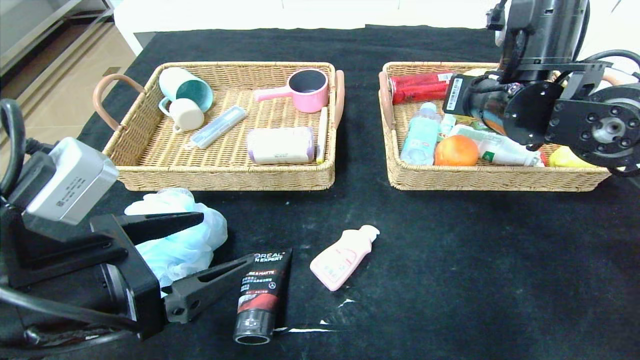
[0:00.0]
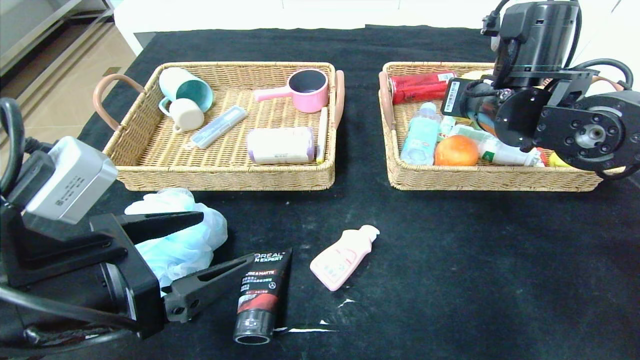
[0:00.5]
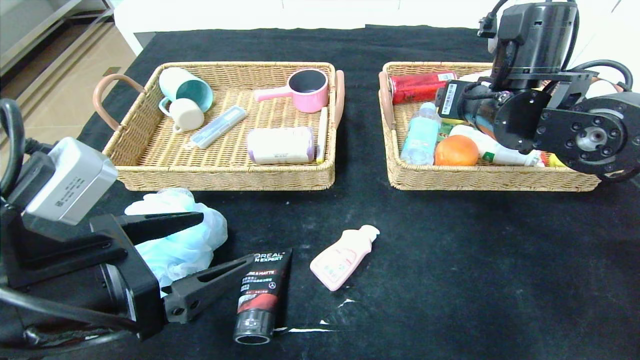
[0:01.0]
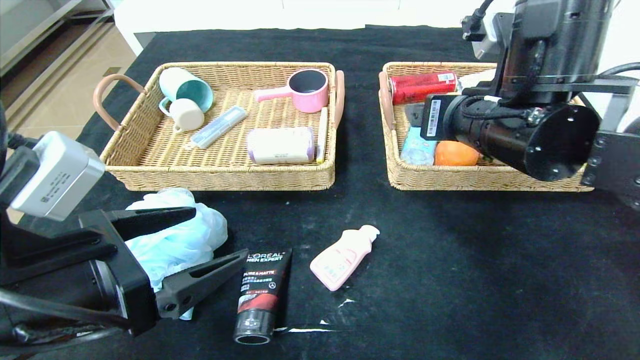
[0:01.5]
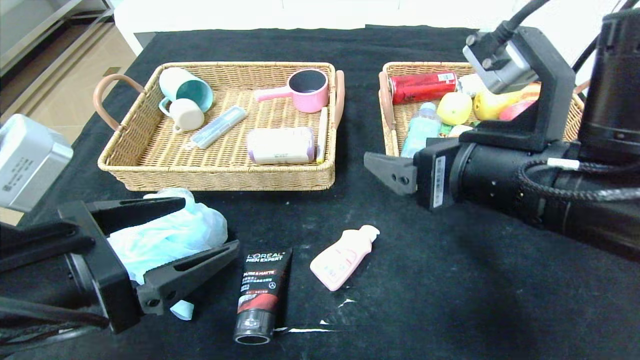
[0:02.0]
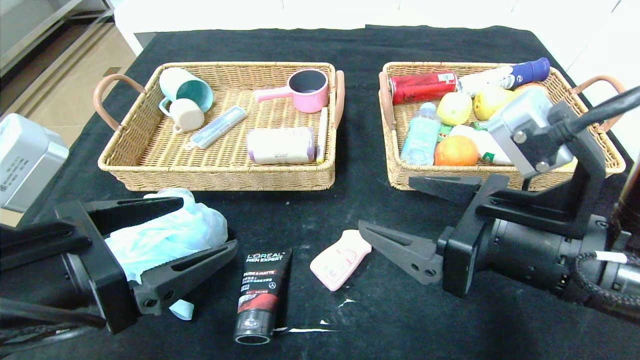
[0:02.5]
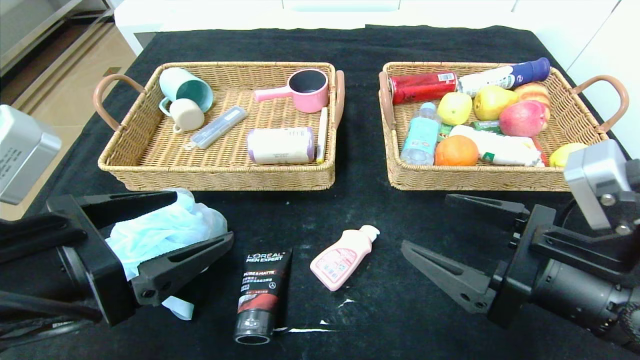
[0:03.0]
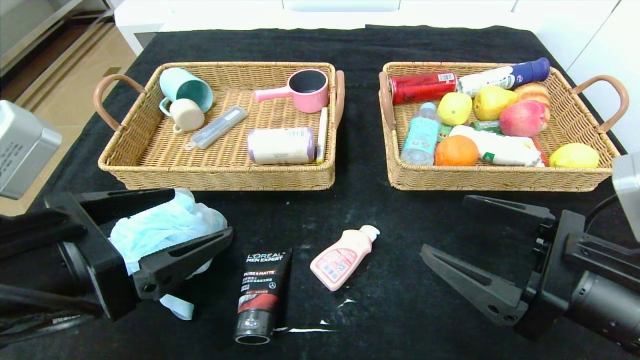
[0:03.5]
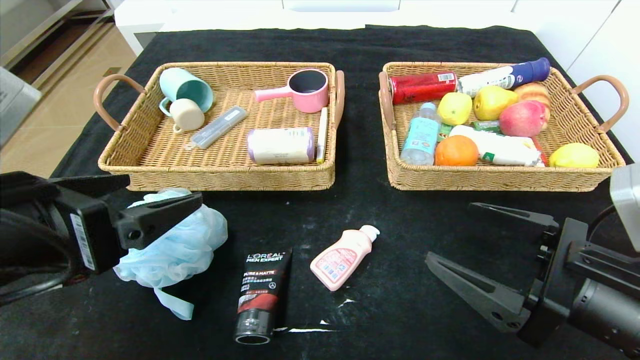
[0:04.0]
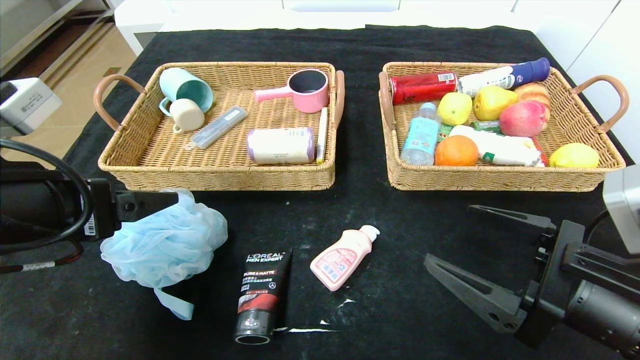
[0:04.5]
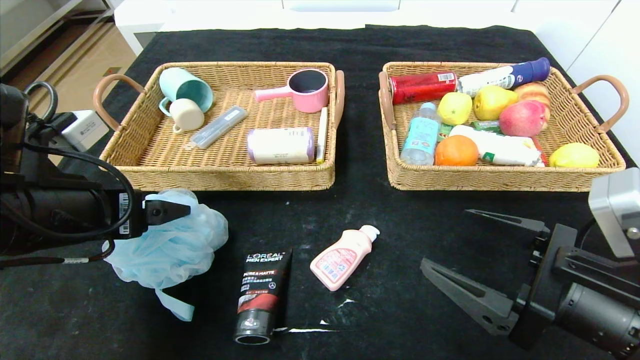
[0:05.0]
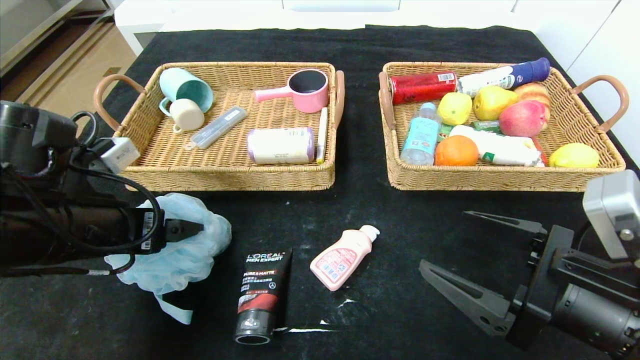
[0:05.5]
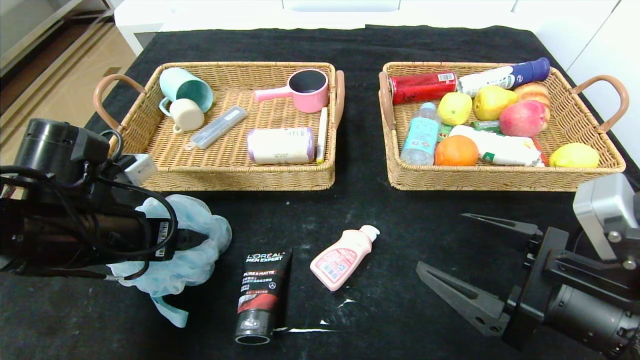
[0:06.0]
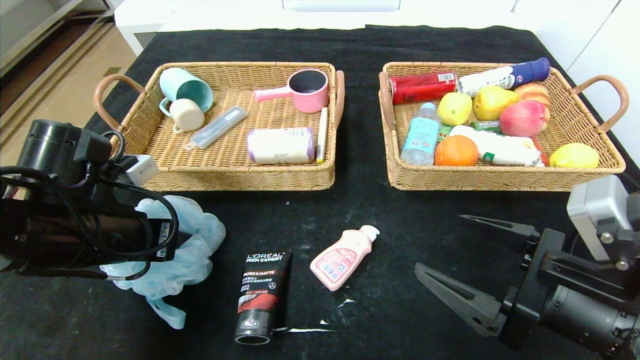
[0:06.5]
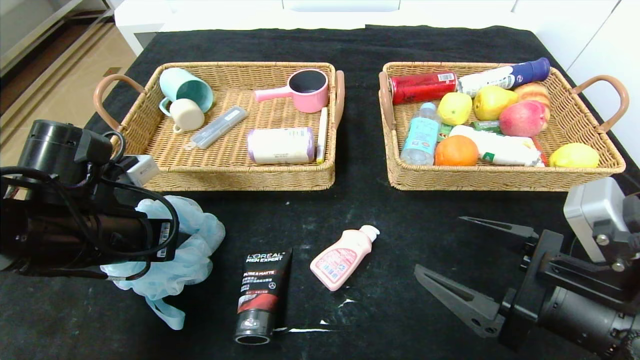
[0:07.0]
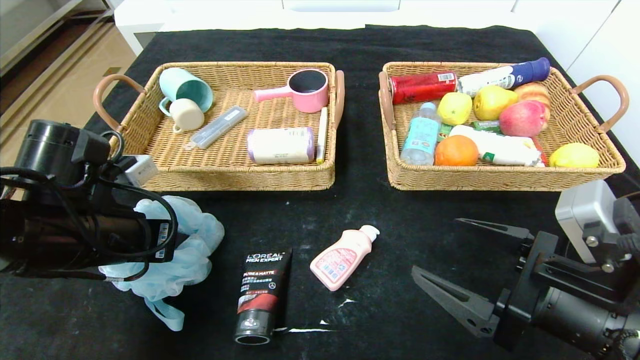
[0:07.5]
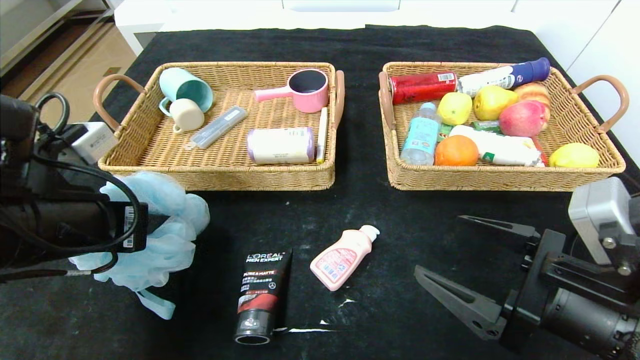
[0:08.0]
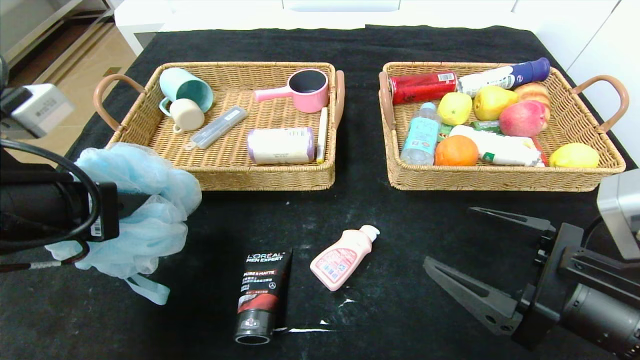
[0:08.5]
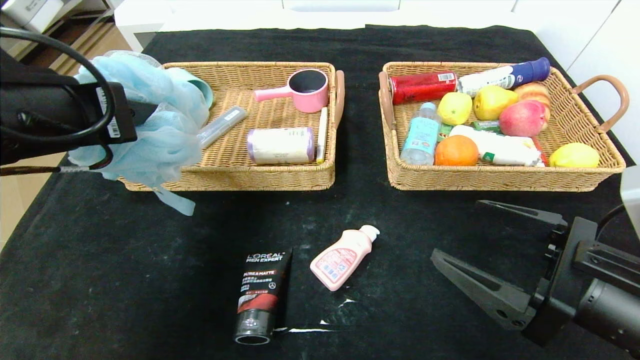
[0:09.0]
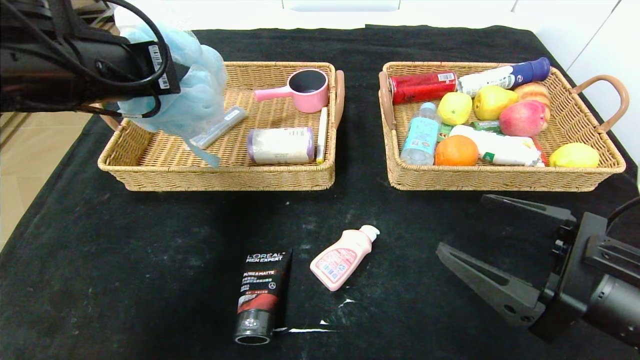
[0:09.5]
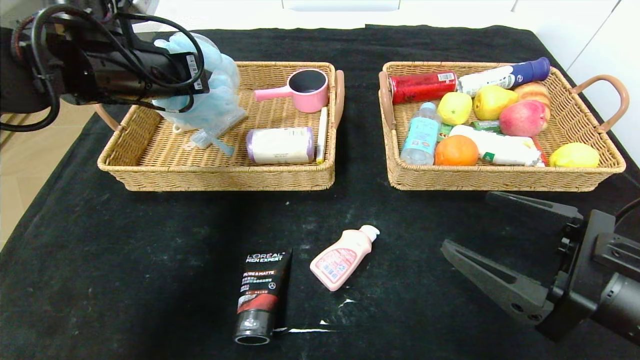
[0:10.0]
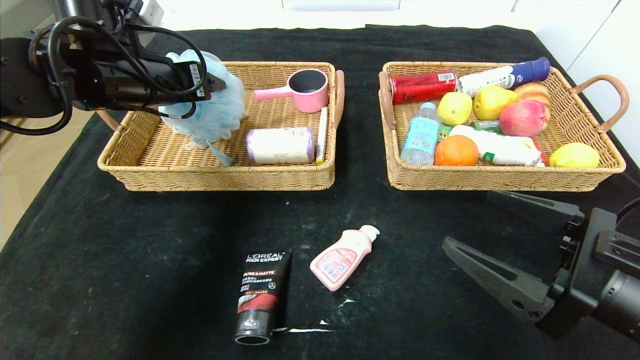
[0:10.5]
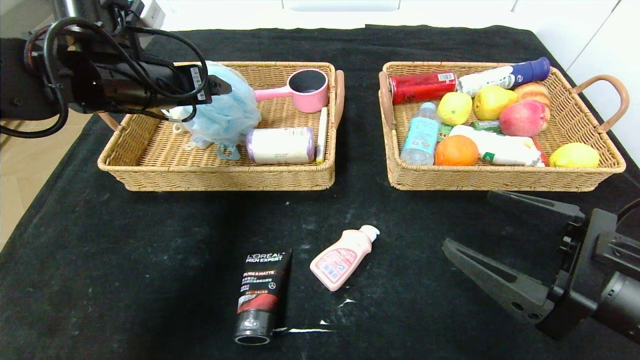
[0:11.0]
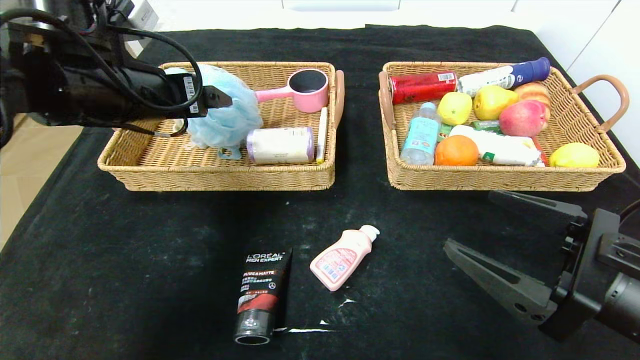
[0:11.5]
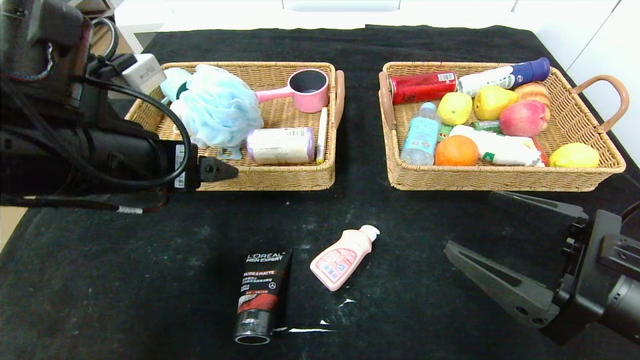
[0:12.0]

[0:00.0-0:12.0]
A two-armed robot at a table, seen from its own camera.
Step, 0:00.0 to 0:02.5: Pick up the lemon and put it in the right basket.
0:00.0 to 0:02.0: The right gripper heads backward, covering approximately 15 cm, and opens its fingers.
0:02.0 to 0:04.0: The right gripper goes some 10 cm downward, to the right and backward.
0:04.0 to 0:06.0: The left gripper travels forward and downward by about 10 cm.
0:06.0 to 0:08.0: The left gripper shifts by about 5 cm, and closes its fingers.
0:08.0 to 0:10.0: The left gripper moves forward and upward, approximately 20 cm.
0:10.0 to 0:12.0: The left gripper shifts approximately 15 cm backward, and opens its fingers.

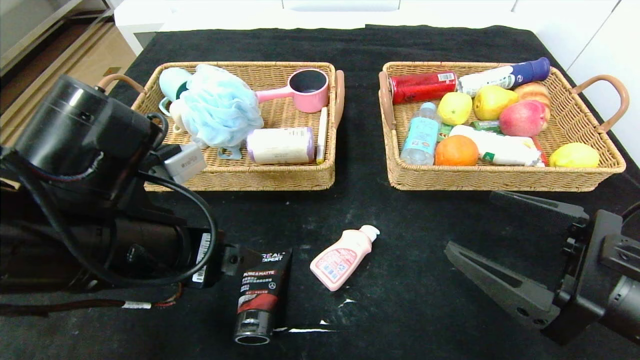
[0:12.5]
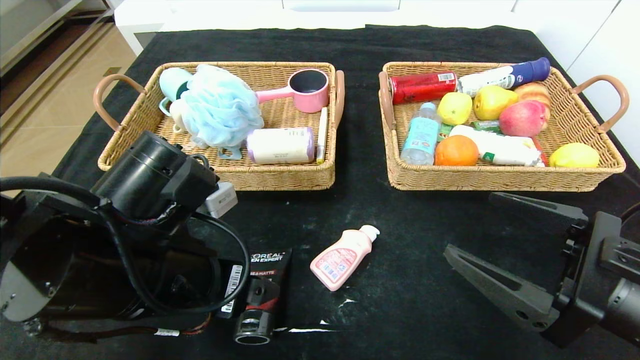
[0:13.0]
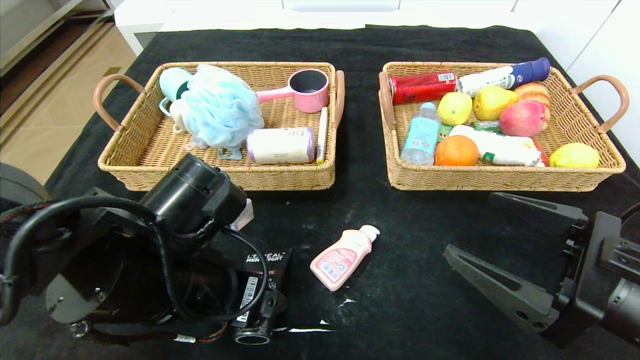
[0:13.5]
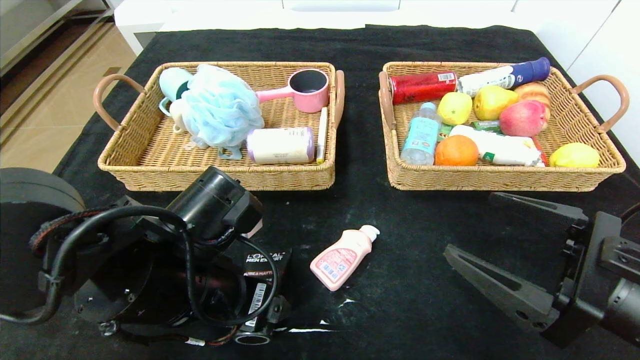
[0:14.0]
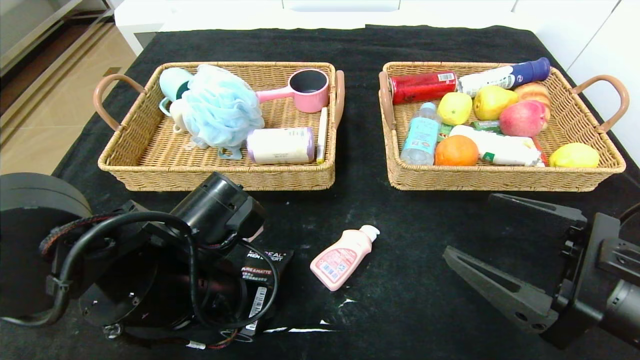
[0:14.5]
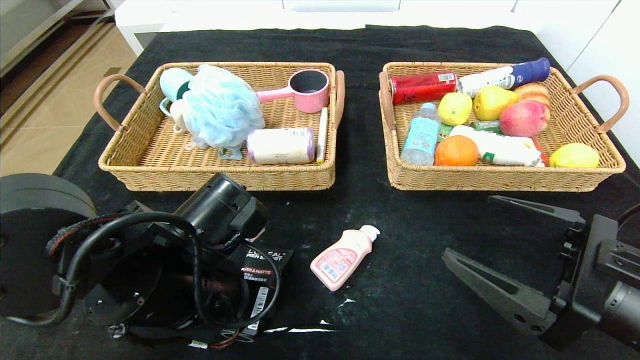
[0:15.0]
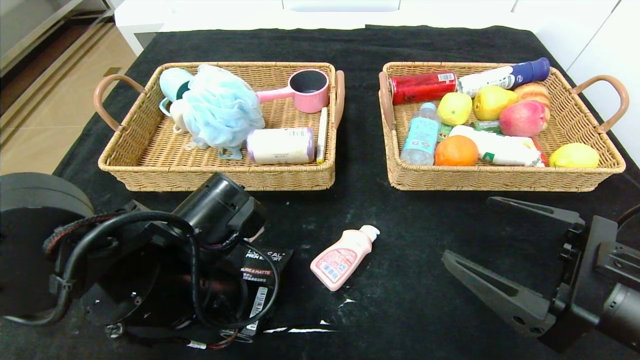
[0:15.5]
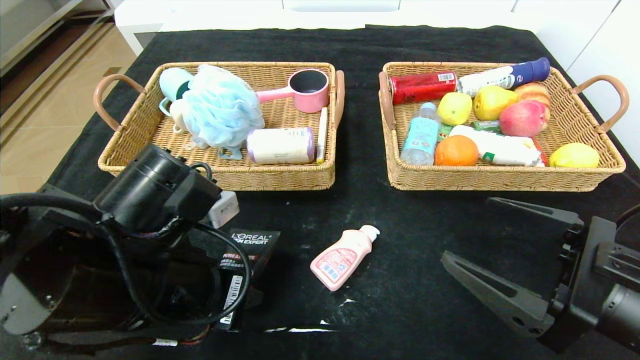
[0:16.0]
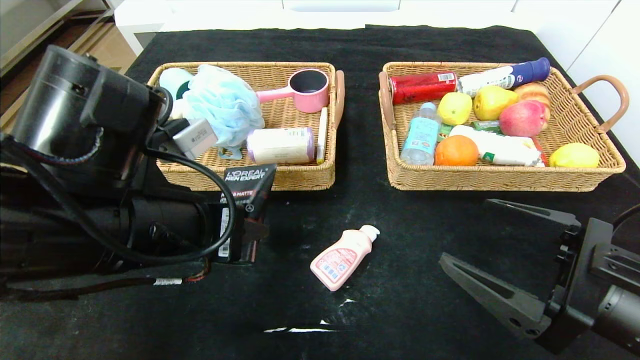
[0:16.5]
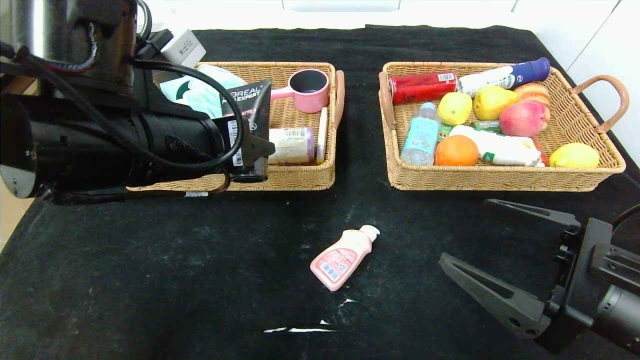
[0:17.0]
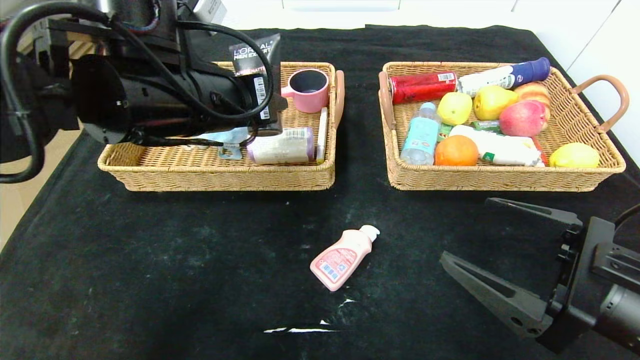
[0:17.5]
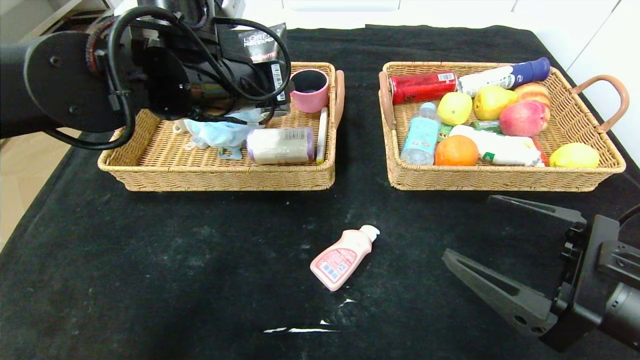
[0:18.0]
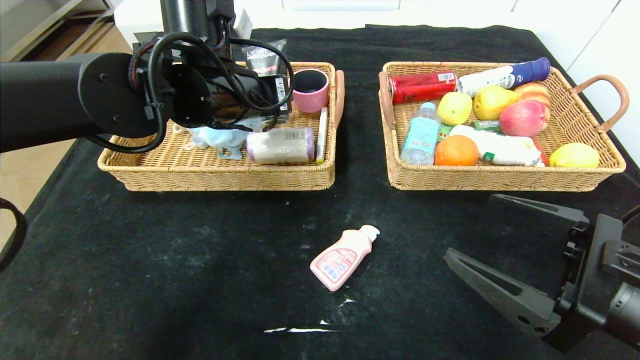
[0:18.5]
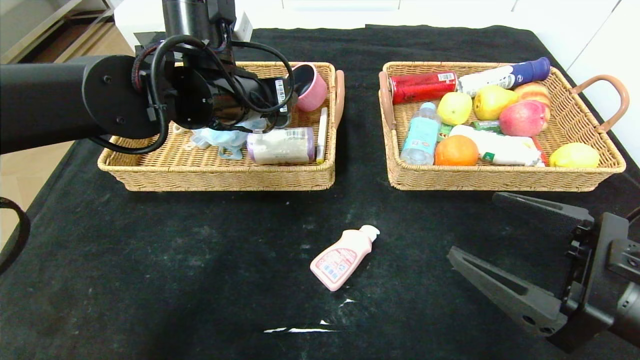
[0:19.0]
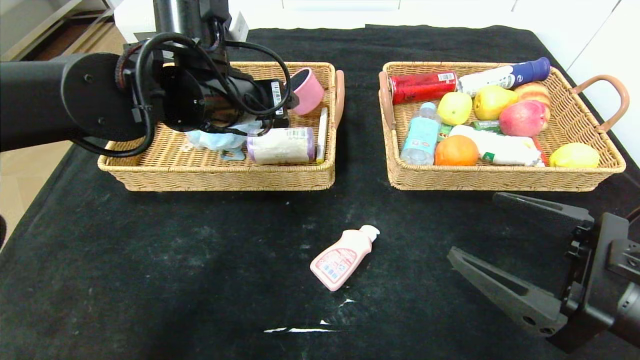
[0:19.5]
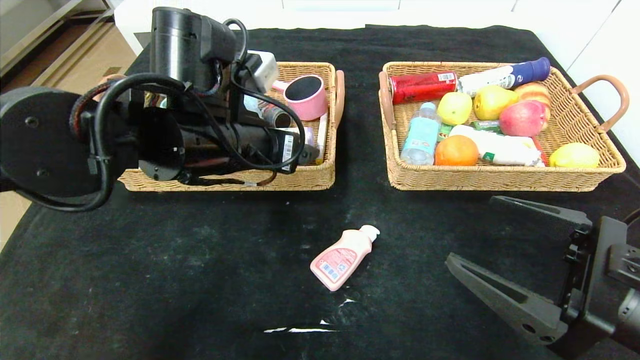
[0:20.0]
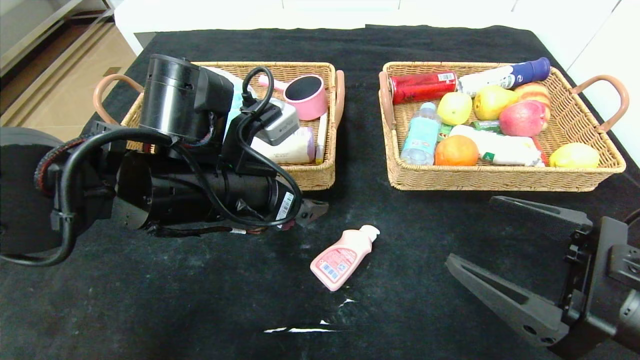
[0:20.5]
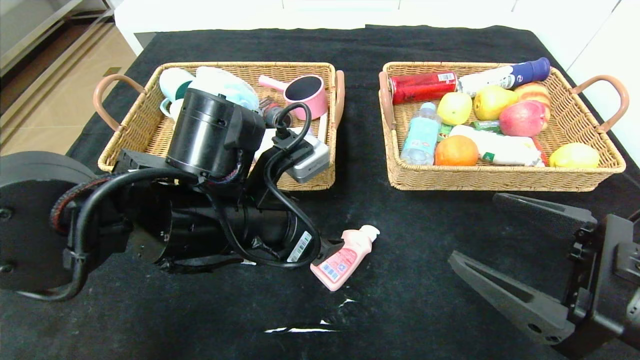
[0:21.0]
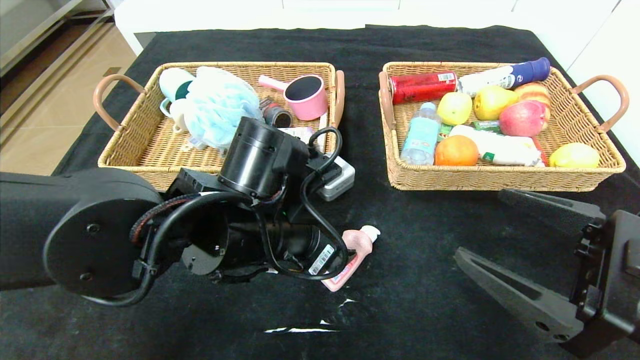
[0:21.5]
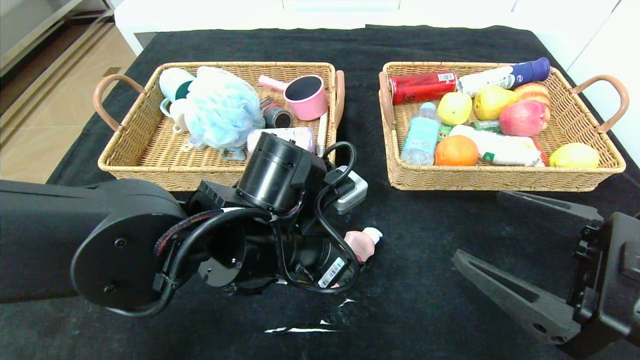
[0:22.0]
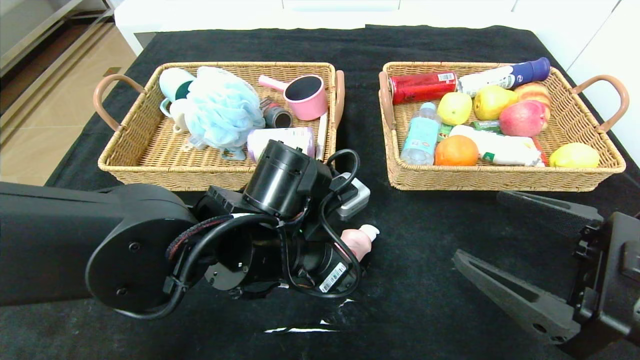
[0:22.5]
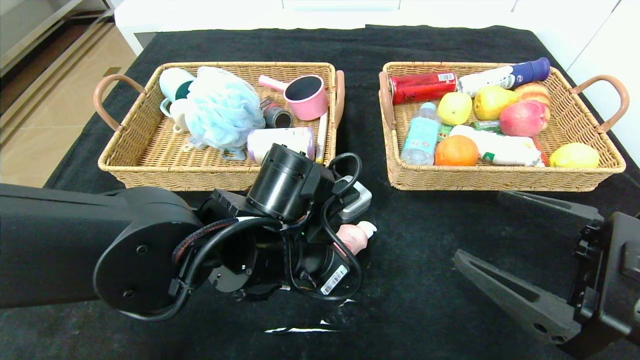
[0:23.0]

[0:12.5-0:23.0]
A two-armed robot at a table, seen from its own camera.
Step, 0:12.5 to 0:20.0: Pick up the soft cleanser and put it in the left basket.
0:12.5 to 0:14.5: The left gripper travels downward by some 5 cm, and closes its fingers.
0:14.5 to 0:16.5: The left gripper goes some 10 cm upward.
0:16.5 to 0:19.0: The left gripper moves forward, approximately 15 cm, and opens its fingers.
0:19.0 to 0:21.0: The left gripper is displaced backward and downward by some 15 cm, and opens.
0:21.0 to 0:23.0: The left gripper changes place by approximately 5 cm, and closes up.
